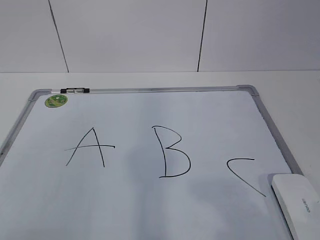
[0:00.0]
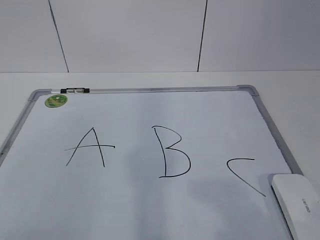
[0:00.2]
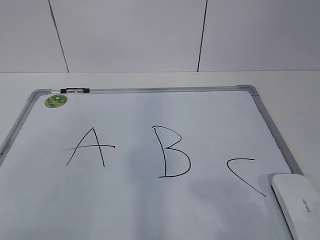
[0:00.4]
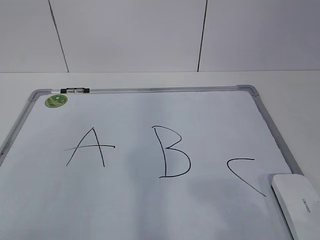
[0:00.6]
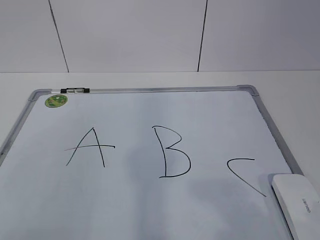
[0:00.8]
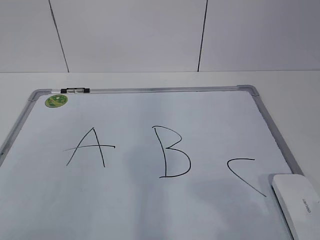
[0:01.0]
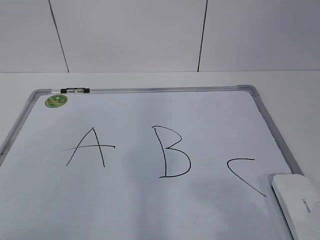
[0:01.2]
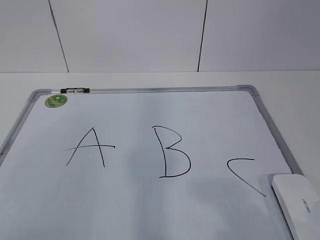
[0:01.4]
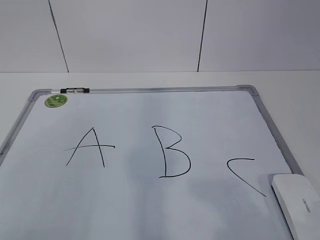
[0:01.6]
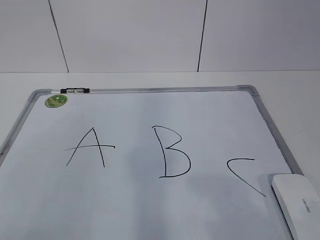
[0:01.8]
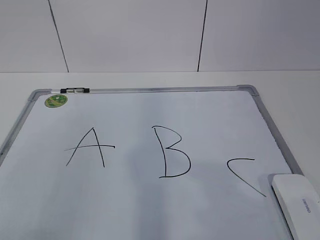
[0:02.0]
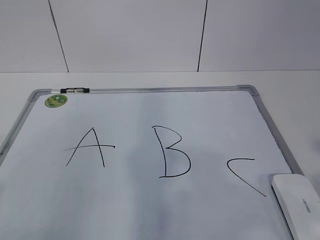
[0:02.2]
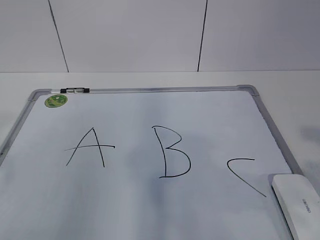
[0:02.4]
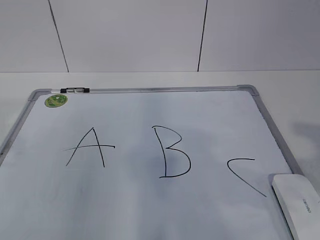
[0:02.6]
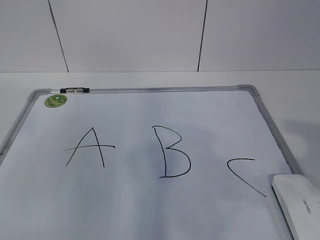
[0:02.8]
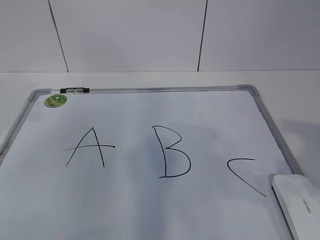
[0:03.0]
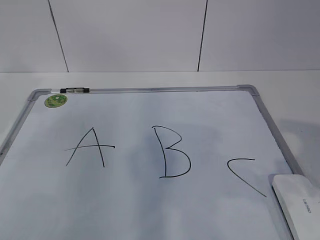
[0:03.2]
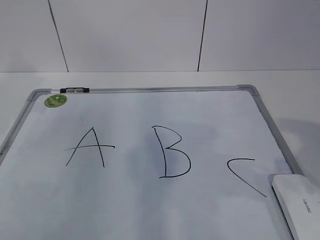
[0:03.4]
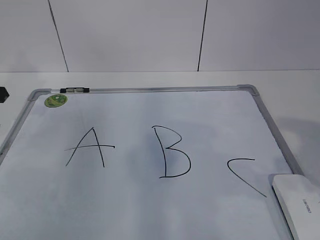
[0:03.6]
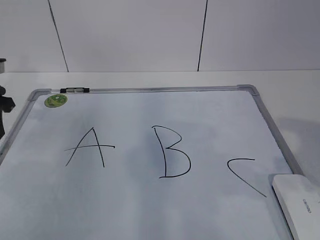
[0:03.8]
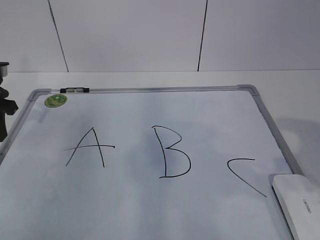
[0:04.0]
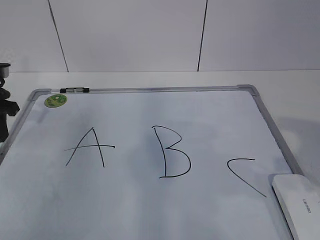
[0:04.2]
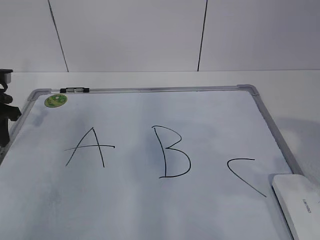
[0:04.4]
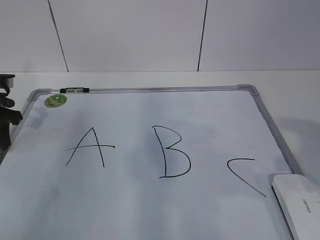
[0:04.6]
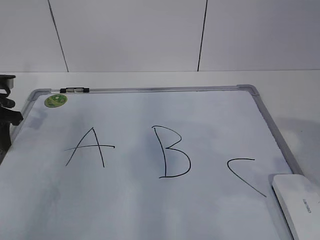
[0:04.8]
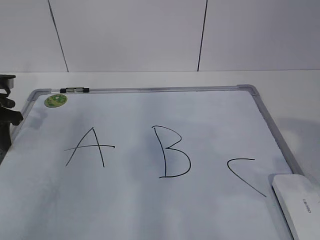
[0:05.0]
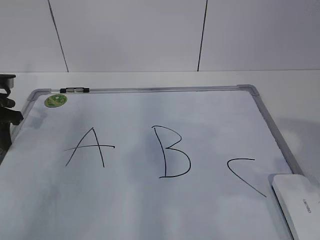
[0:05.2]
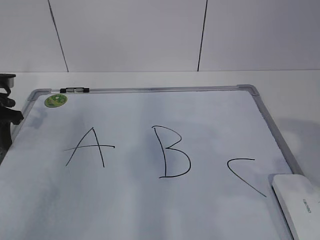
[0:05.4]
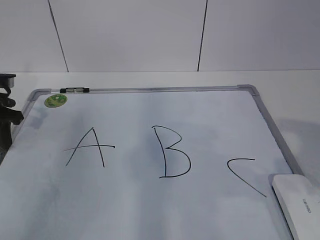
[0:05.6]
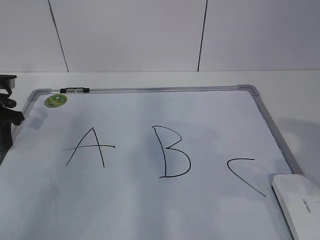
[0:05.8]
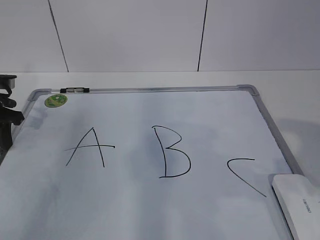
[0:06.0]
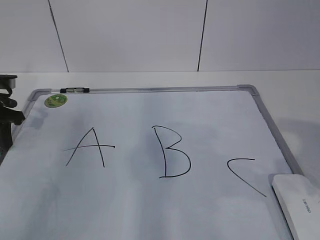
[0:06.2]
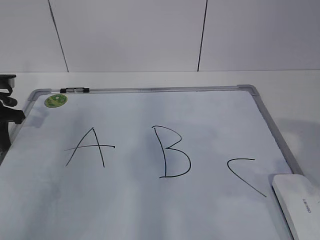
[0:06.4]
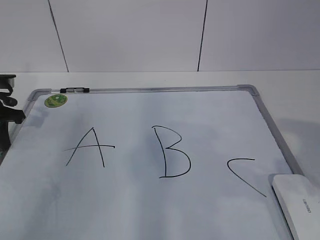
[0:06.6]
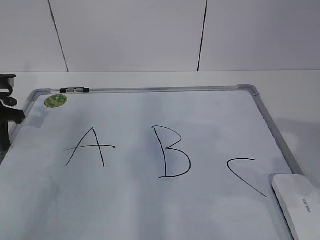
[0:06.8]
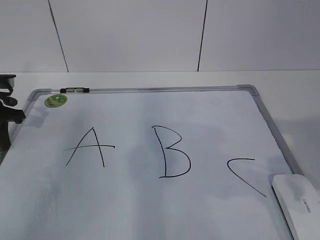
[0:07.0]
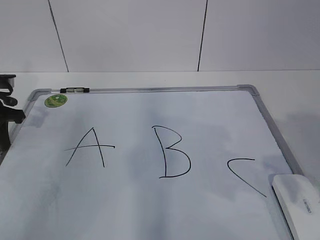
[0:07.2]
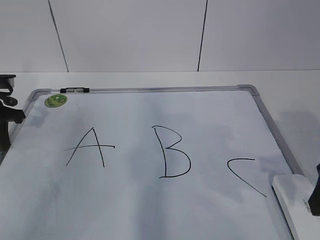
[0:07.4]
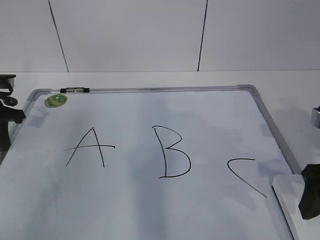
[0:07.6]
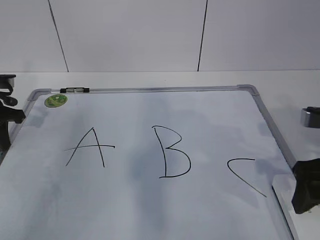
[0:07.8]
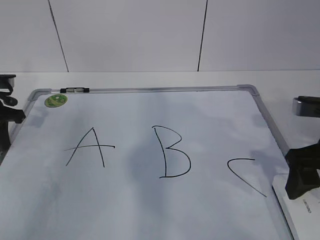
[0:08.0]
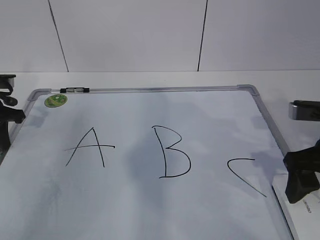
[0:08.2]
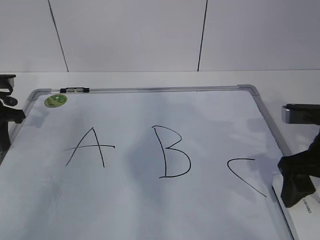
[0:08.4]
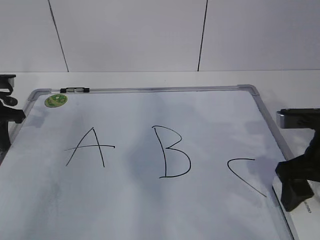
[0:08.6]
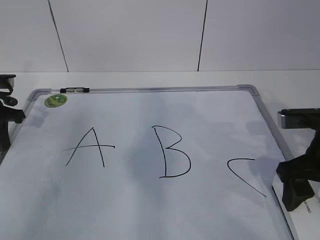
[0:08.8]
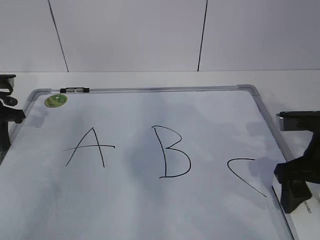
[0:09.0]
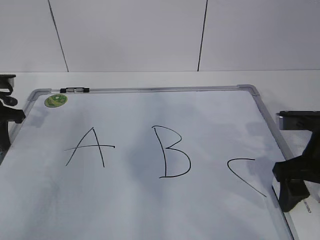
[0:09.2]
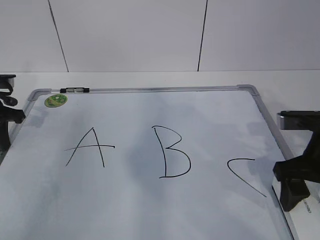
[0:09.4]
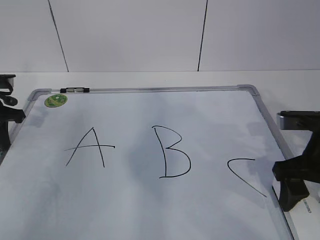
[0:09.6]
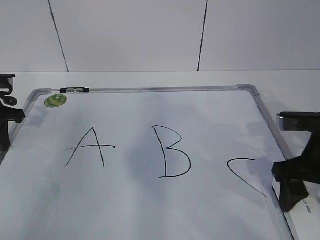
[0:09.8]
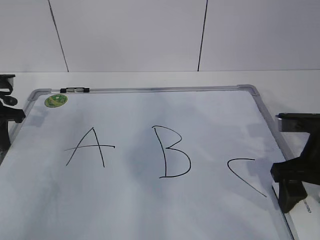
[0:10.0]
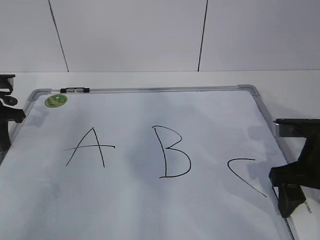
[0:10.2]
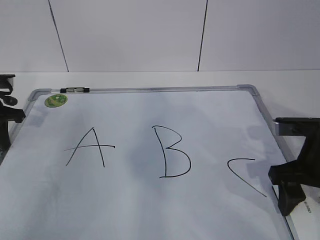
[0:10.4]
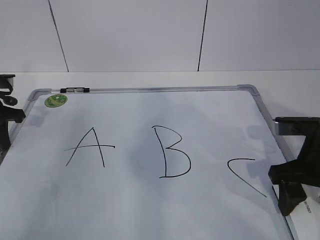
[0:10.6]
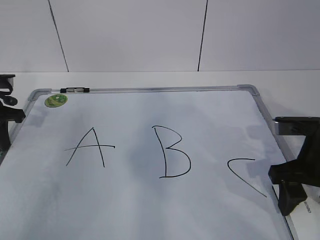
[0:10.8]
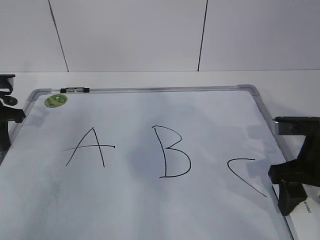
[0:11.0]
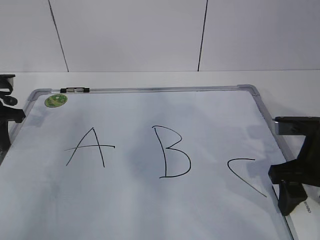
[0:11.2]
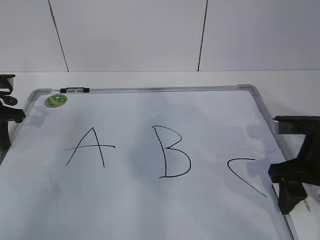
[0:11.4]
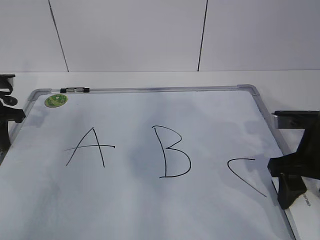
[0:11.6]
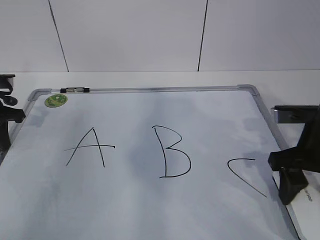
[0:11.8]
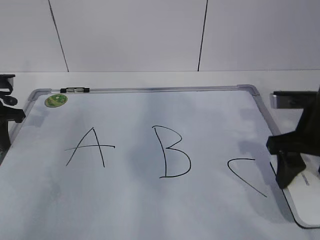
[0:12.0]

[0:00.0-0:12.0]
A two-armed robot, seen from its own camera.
Task of the whole recording: pick up the eraser on the blackboard and erase the letter "B".
Step, 0:05.4 to 0:09.4: Grab the eraser with your right hand.
0:01.6 to 0:03.0: The left gripper travels forward by approximately 25 cm, while the right gripper shifts some 10 cm forward, and closes its fingers.
0:03.0 to 0:04.4: The left gripper heads downward and forward, covering approximately 15 cm.
0:06.0 to 0:07.6: The right gripper is displaced forward and downward by roughly 10 cm, and opens up.
0:07.6 to 0:09.0: The right gripper moves some 5 cm.
0:09.0 to 0:12.0: The grippers make only small movements.

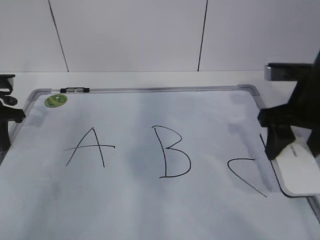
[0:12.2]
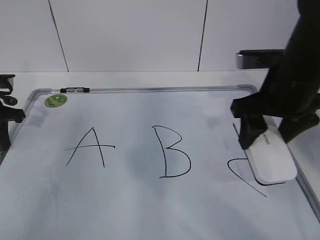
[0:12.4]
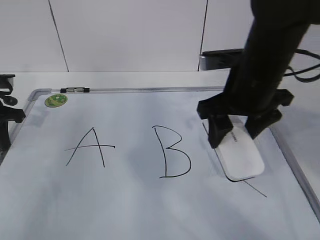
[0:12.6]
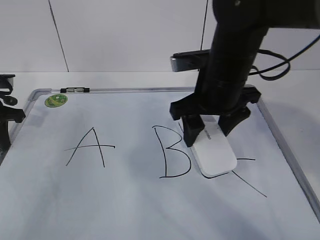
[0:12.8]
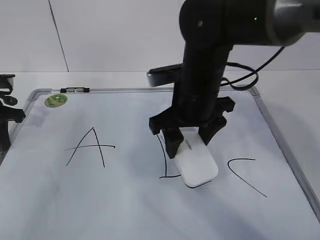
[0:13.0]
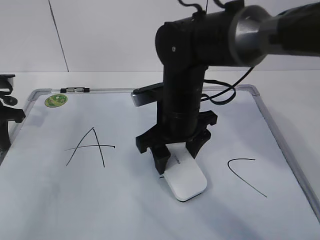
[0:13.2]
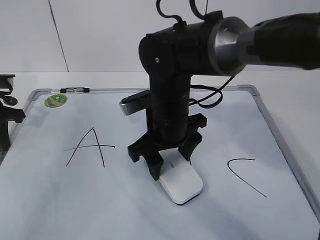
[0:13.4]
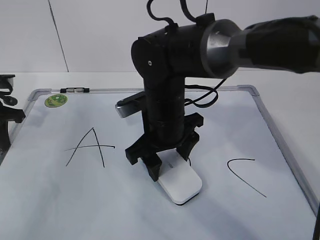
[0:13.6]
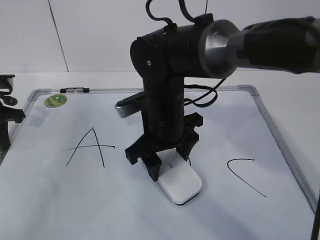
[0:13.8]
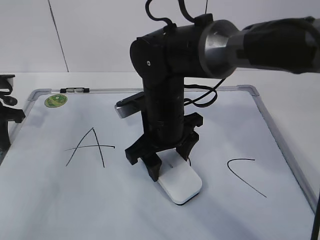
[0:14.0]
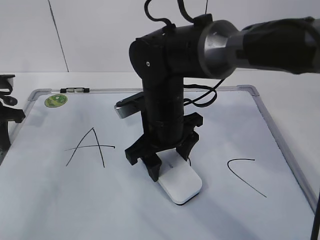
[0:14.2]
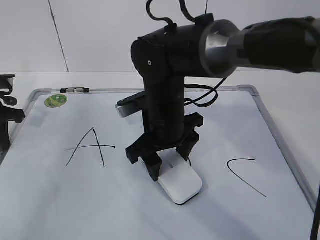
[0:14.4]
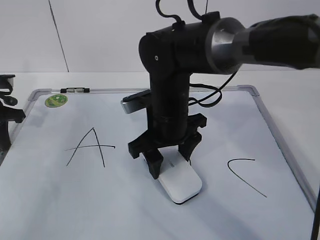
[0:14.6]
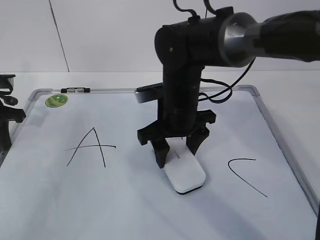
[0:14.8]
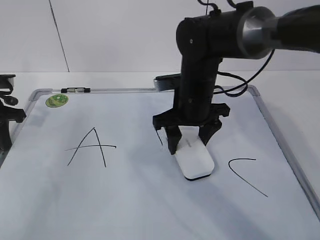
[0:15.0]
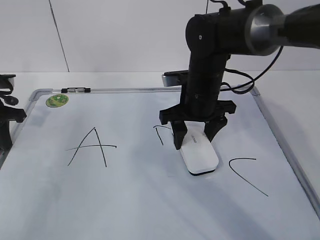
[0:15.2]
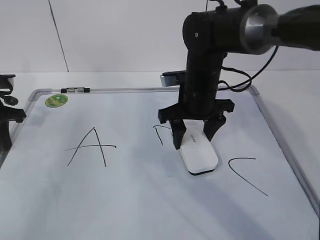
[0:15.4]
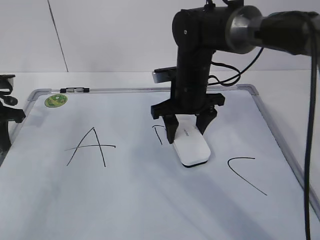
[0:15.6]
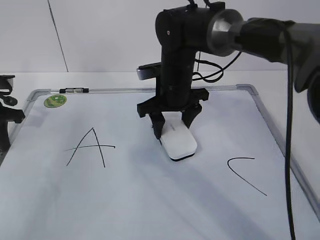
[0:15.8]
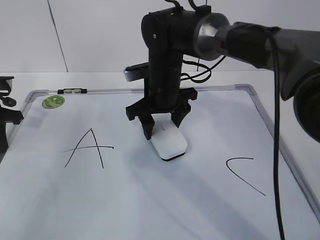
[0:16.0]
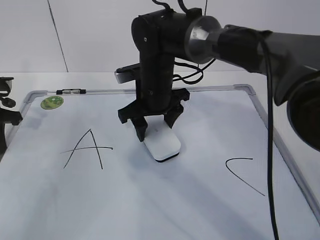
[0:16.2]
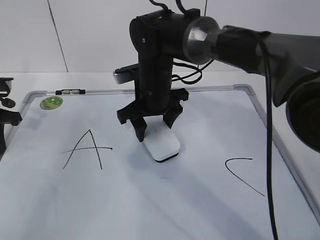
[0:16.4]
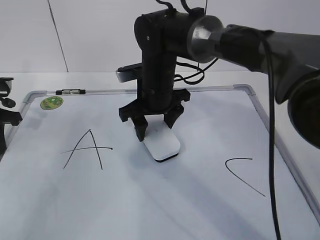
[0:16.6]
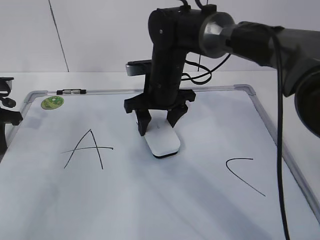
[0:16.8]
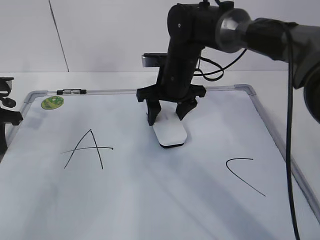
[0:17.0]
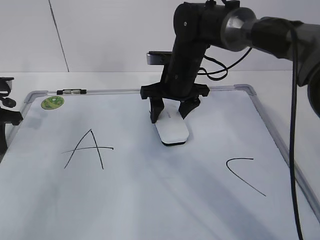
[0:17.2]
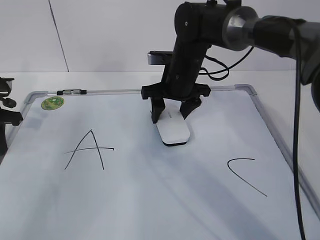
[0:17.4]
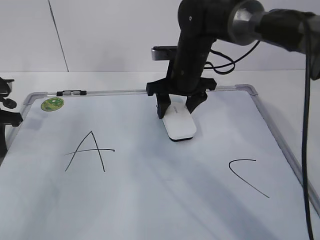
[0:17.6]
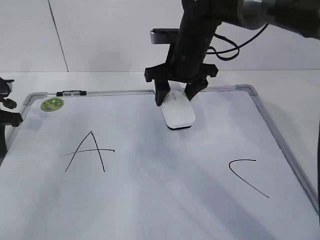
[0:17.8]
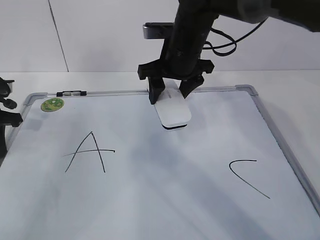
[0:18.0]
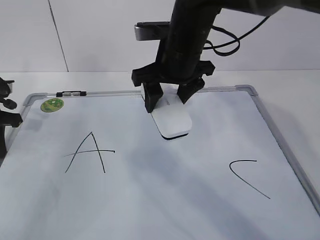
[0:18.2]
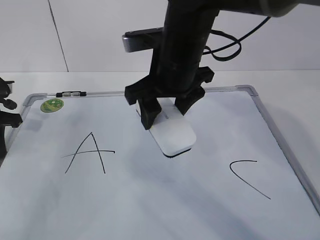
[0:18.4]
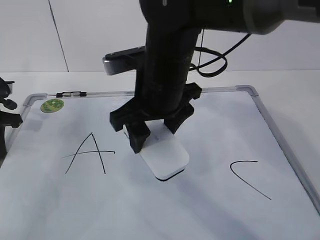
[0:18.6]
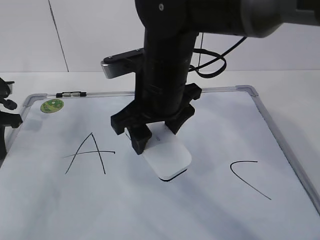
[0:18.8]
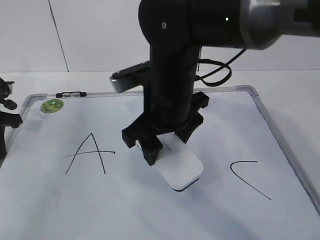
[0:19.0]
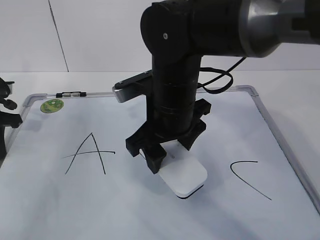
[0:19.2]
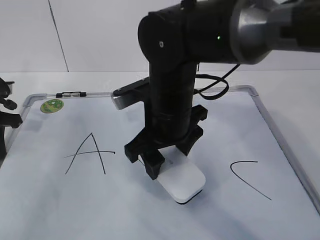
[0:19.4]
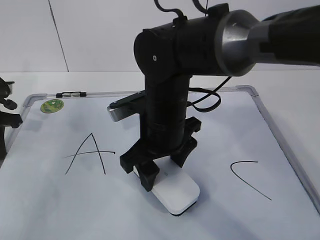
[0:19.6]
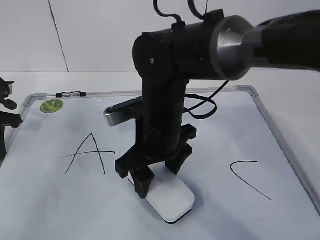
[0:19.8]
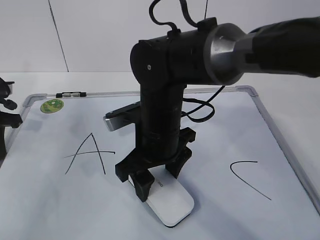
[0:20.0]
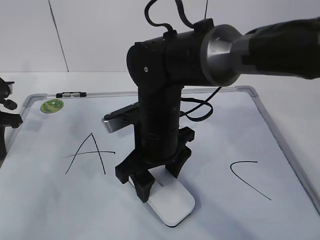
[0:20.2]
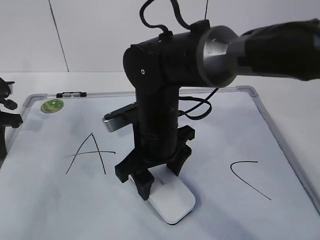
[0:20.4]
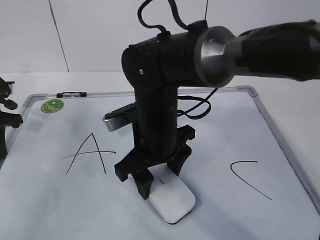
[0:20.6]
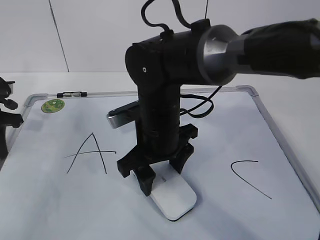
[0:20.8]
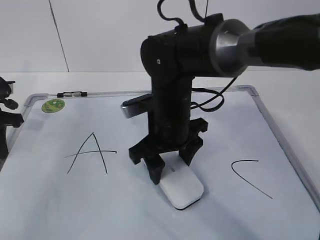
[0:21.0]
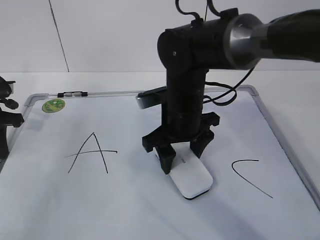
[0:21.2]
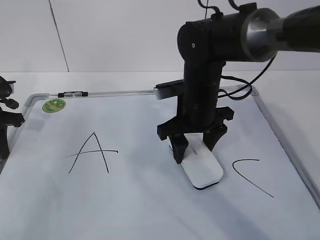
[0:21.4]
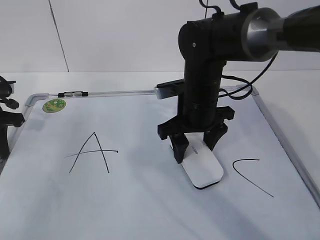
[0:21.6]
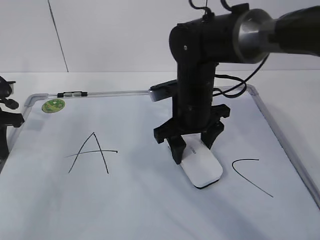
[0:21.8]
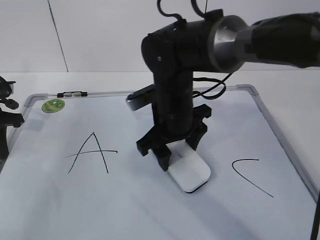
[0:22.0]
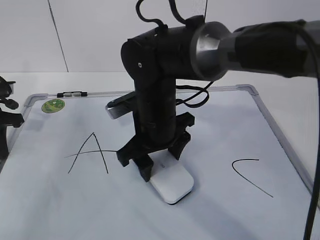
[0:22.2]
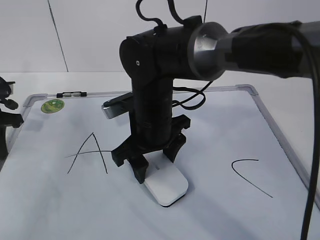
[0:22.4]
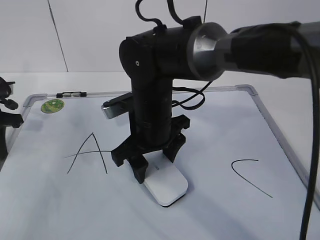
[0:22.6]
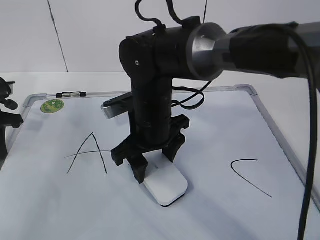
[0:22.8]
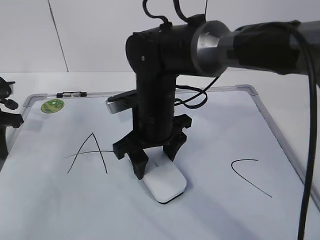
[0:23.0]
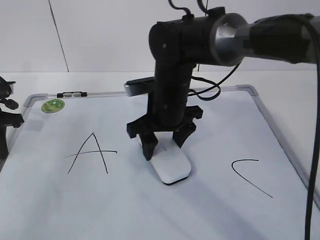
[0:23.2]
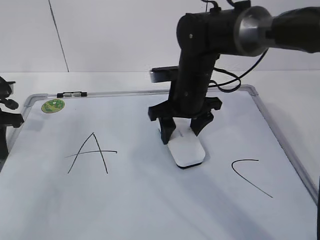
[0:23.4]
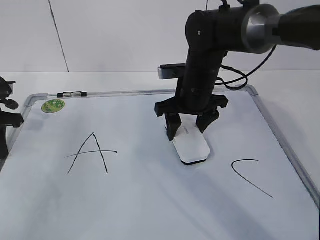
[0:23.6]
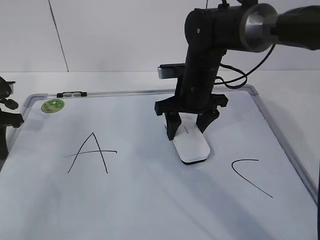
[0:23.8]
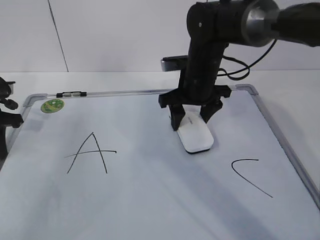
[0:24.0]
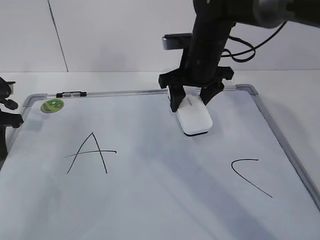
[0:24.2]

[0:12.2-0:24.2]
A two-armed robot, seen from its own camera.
Task of the whole recording: pick up the eraser on the blackboard and erase the letter "B".
Step, 0:12.2 to 0:19.8: Erase the letter B with your right hand.
Step, 0:20.0 to 0:23.8: Put down the eraser with your right hand.
0:12.2 to 0:13.8: The right gripper shifts about 20 cm to the left.
0:13.8 to 0:15.2: The right gripper moves to the right and forward, some 10 cm.
0:15.2 to 0:16.6: The right gripper is displaced to the left by some 10 cm.
0:16.6 to 0:18.2: The right gripper moves upward, roughly 10 cm.
0:18.2 to 0:19.8: The right gripper goes about 10 cm backward and downward.
0:19.8 to 0:21.2: The right gripper ends up some 5 cm from where it was.
0:21.2 to 0:22.6: The right gripper shifts some 5 cm to the left.
0:22.6 to 0:24.2: The right gripper goes some 15 cm forward and to the right.
